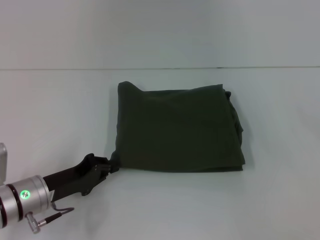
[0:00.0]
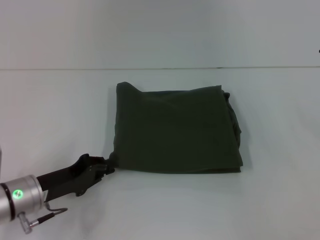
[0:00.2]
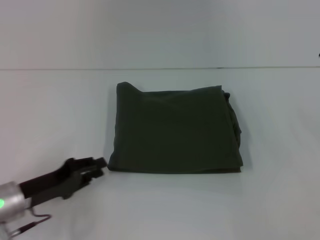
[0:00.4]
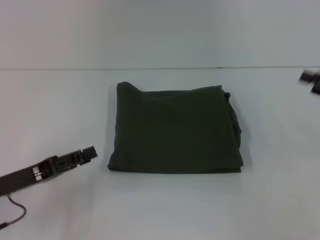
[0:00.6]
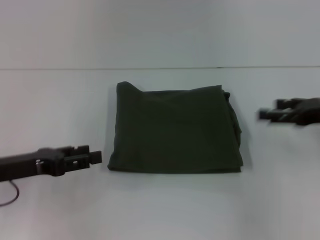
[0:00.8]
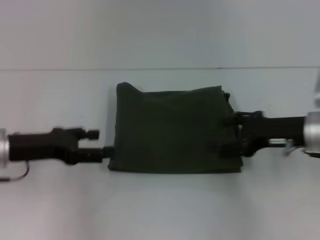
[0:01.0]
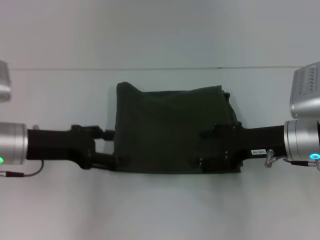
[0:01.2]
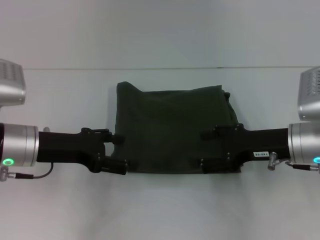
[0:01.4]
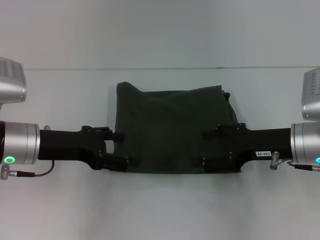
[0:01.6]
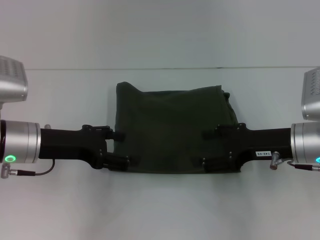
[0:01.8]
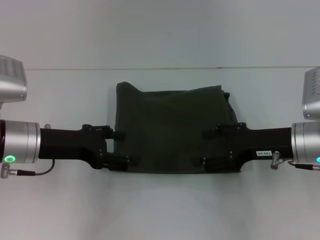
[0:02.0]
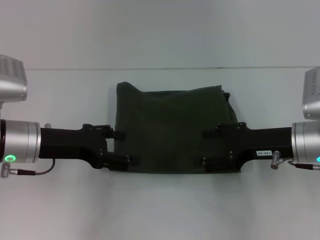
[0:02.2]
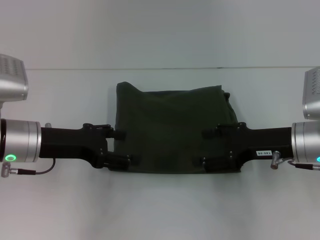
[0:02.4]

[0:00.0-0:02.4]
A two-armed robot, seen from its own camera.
0:00.0 to 0:01.2: The right gripper moves to the left, some 15 cm, while the left gripper goes some 10 cm upward, and opens its fingers.
0:01.2 to 0:02.4: The grippers make only small movements.
